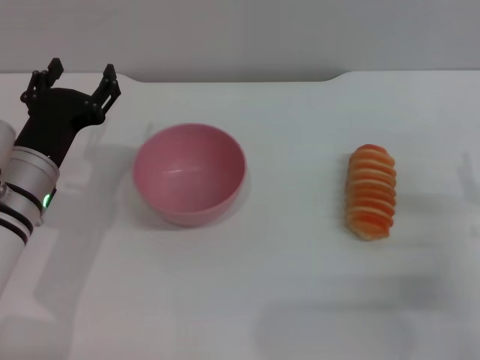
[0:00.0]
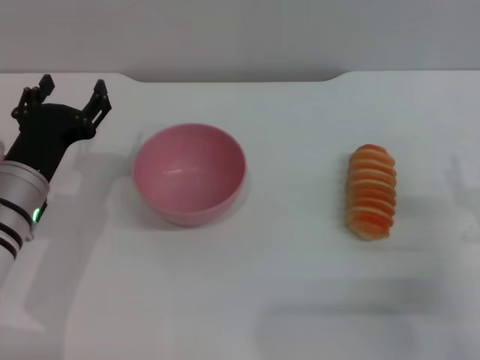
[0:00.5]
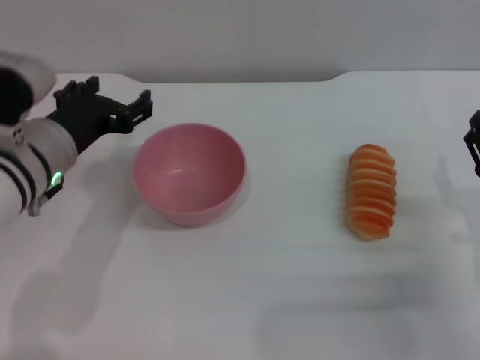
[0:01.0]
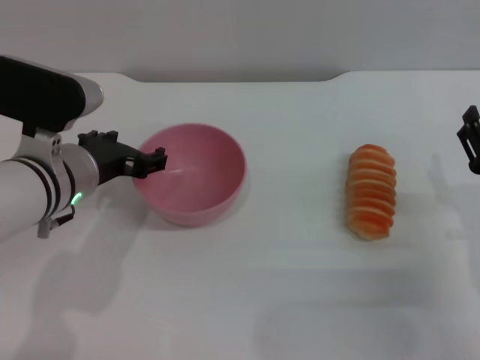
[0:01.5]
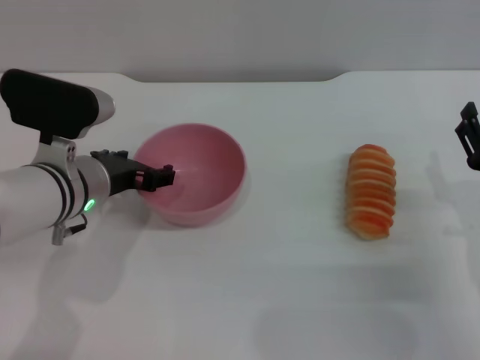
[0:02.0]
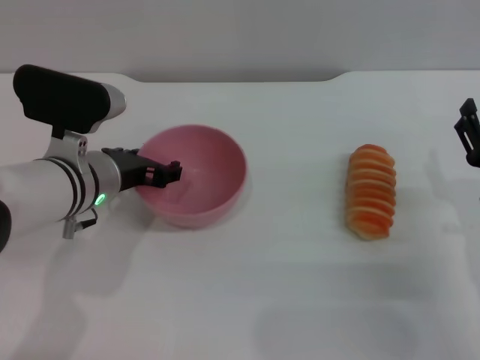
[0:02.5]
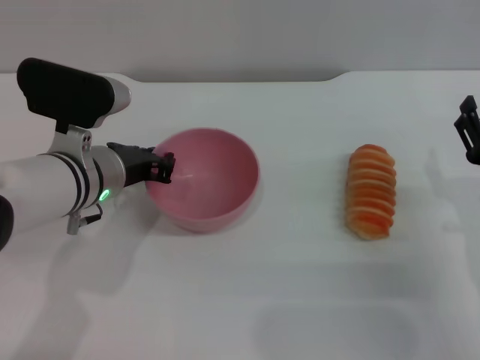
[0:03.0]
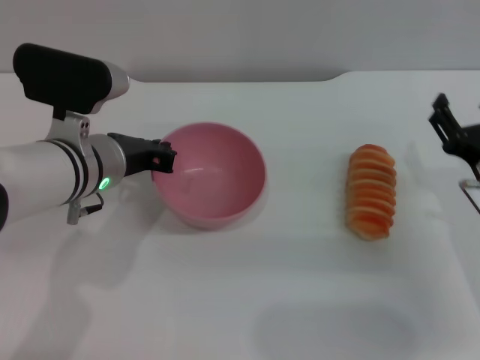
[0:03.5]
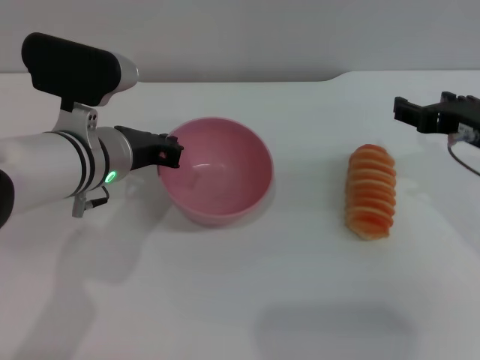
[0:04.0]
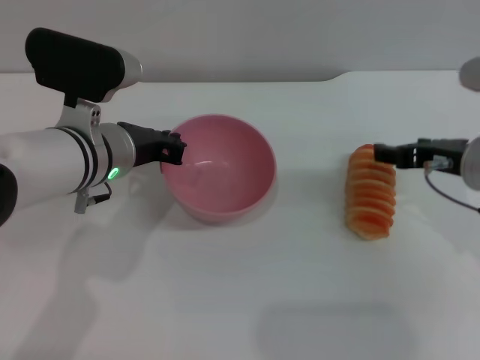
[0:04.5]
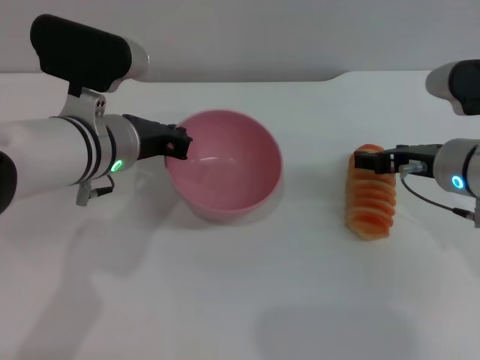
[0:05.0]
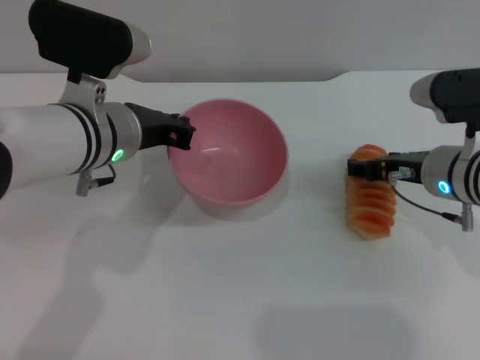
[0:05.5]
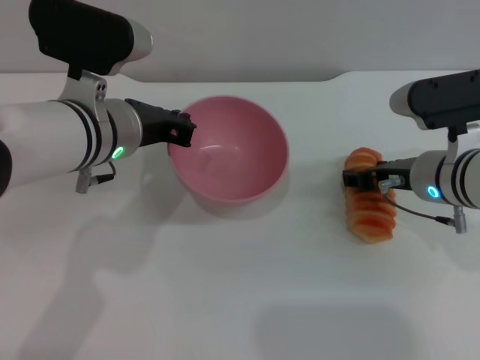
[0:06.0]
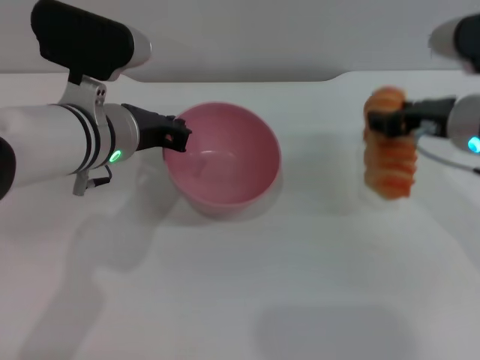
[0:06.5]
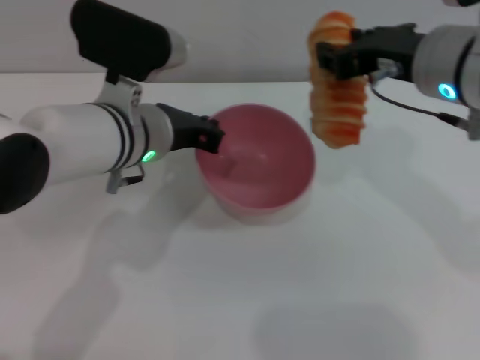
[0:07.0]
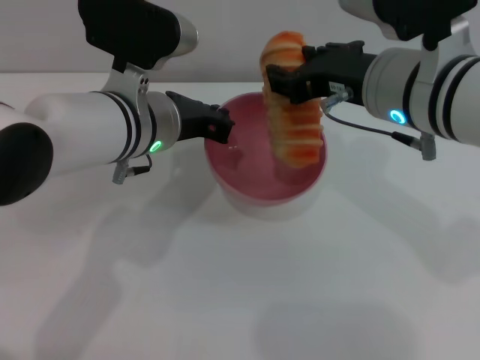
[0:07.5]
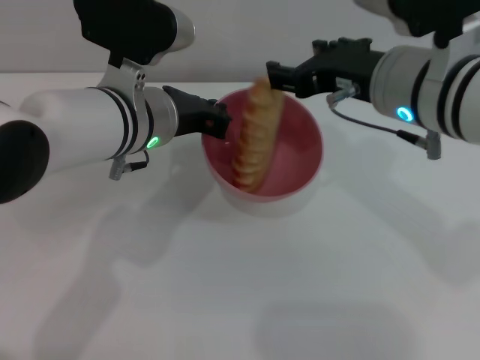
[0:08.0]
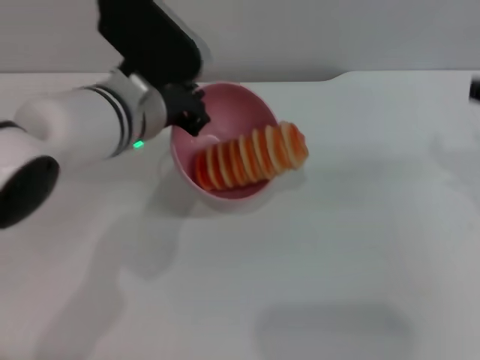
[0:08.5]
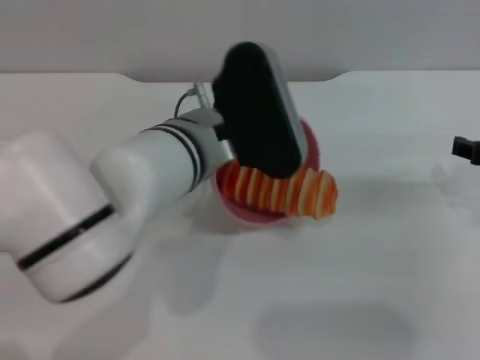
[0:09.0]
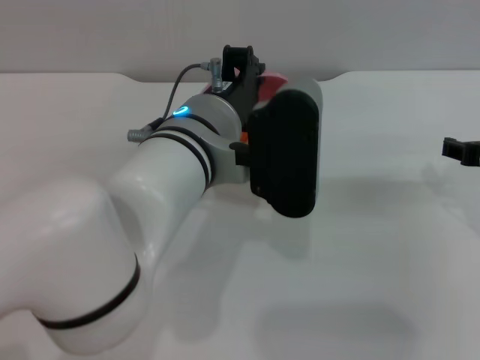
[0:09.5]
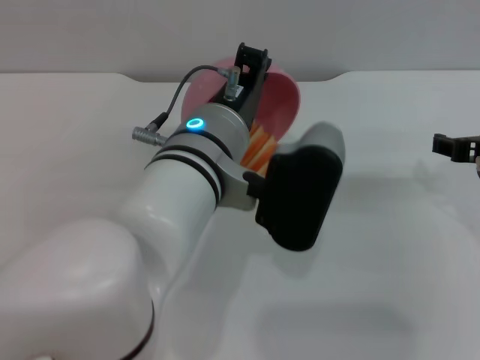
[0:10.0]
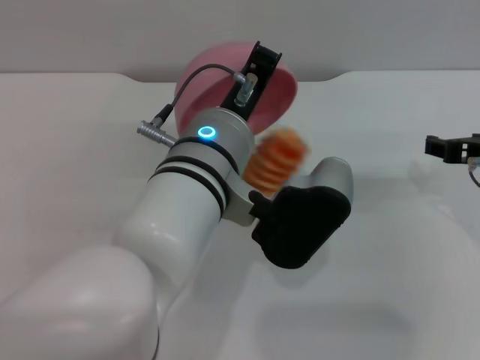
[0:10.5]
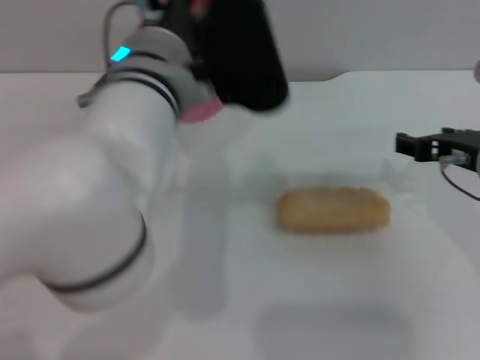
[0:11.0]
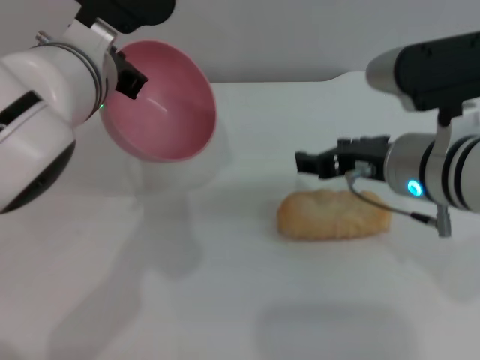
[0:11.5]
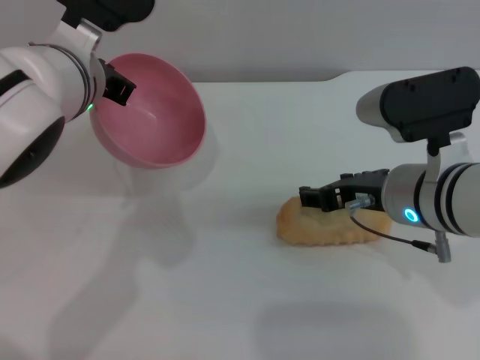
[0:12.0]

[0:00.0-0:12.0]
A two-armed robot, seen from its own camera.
Task of the whole recording: put the bread into the pink bowl and pour it out repeatedly.
Step, 0.0 to 5.5 s: Pick up the bowl with the left gripper.
Step, 7.0 to 8.0 s: Place the bread into the bowl.
Step, 8.5 to 10.5 s: Pour the bread out of the bowl.
0.0 to 2.0 s: The left gripper ends up roughly 5 cm from where it was.
2.0 to 4.0 s: The left gripper closes. Meanwhile the right gripper shifts roughly 15 cm upward and forward.
4.0 to 6.0 s: The right gripper heads downward, covering about 5 cm.
6.0 to 8.0 s: The right gripper heads upward and to the left, covering roughly 15 cm, and closes, then opens again.
8.0 to 10.0 s: The left gripper heads to the right and backward, covering about 10 cm. Meanwhile the right gripper moves to the right and downward, approximately 15 cm.
10.0 to 12.0 s: The left gripper moves to the left and forward, some 10 cm; the right gripper heads to the left, covering about 10 cm.

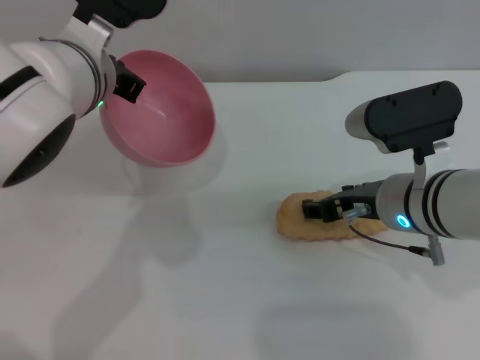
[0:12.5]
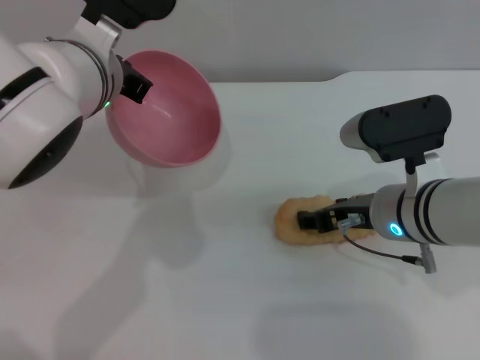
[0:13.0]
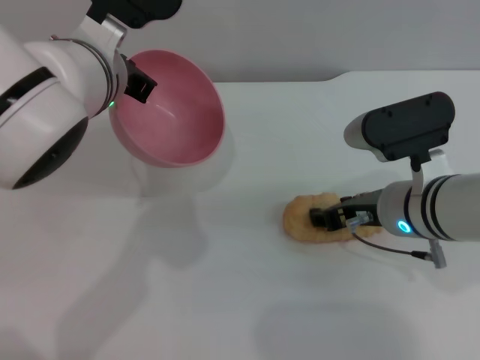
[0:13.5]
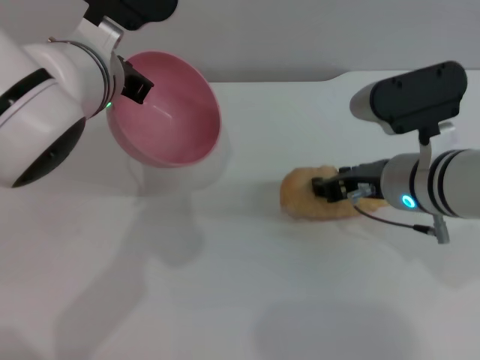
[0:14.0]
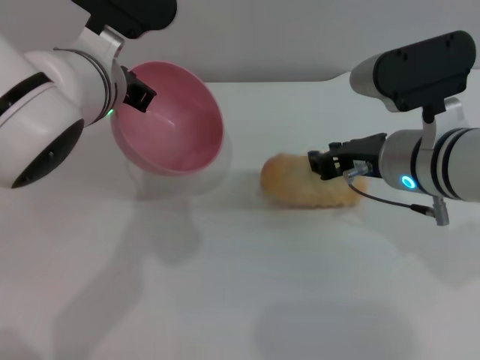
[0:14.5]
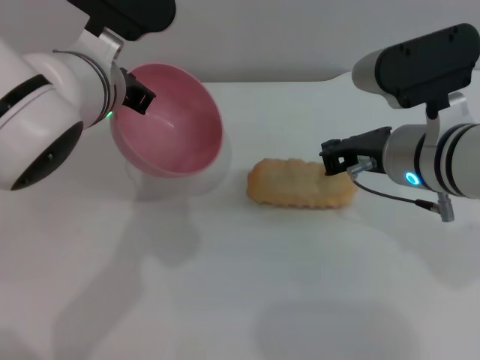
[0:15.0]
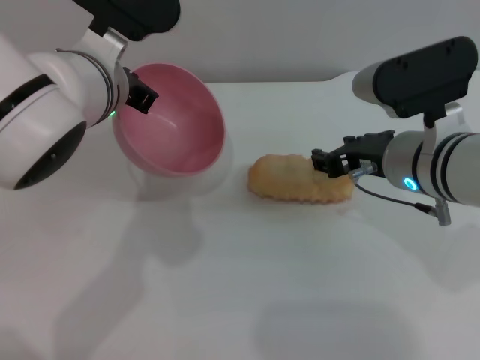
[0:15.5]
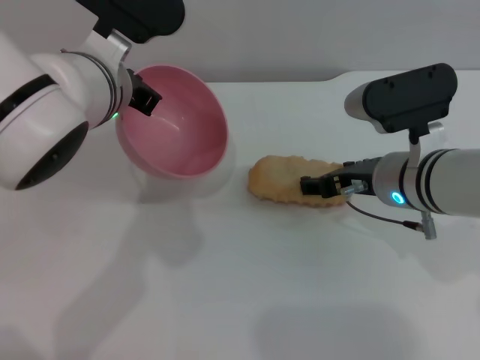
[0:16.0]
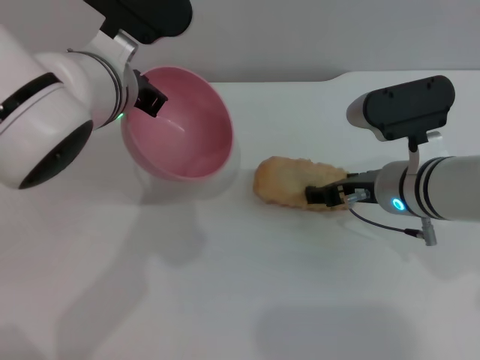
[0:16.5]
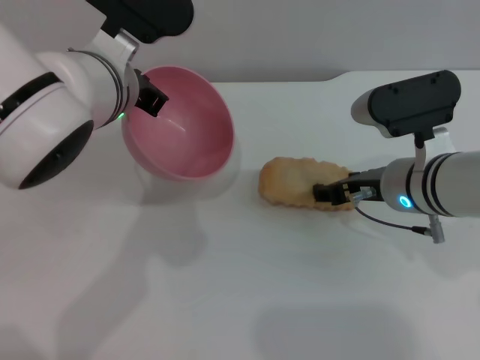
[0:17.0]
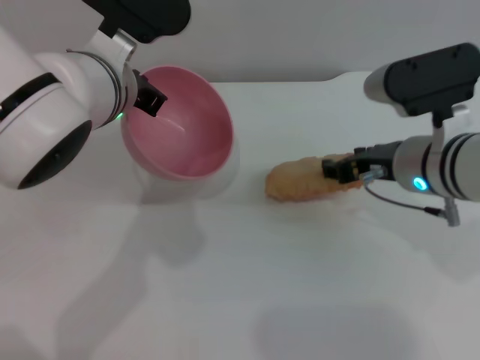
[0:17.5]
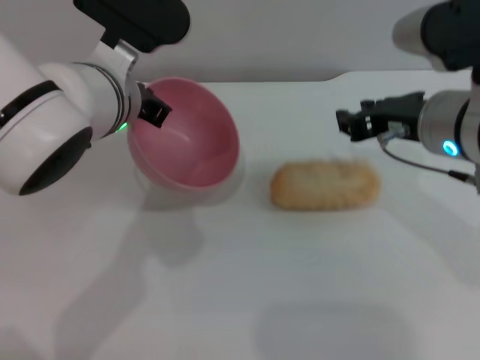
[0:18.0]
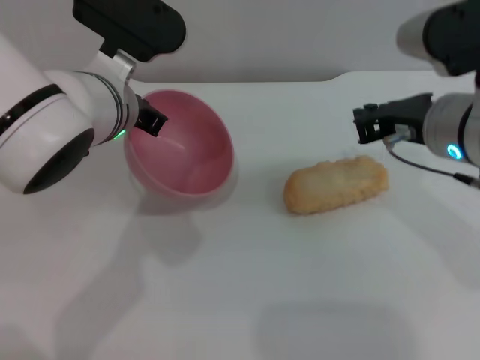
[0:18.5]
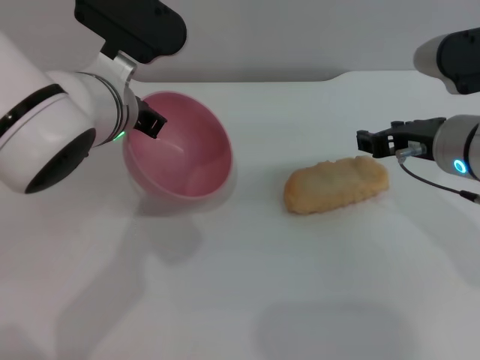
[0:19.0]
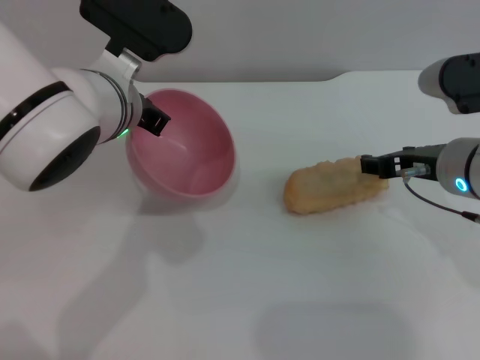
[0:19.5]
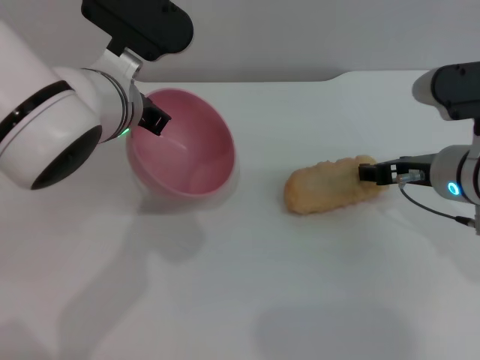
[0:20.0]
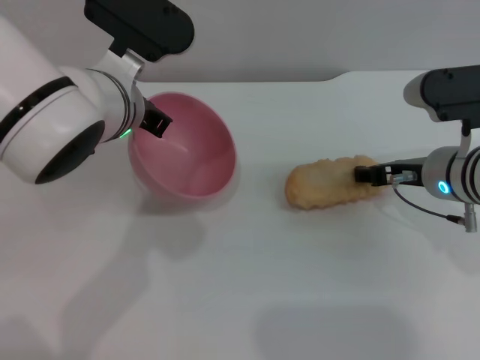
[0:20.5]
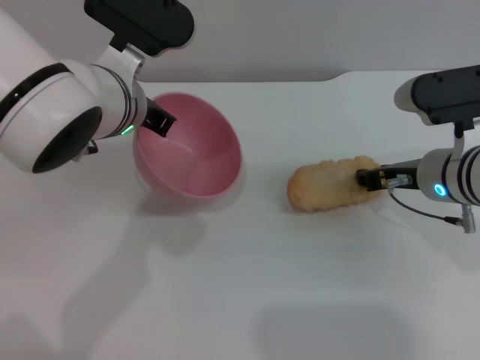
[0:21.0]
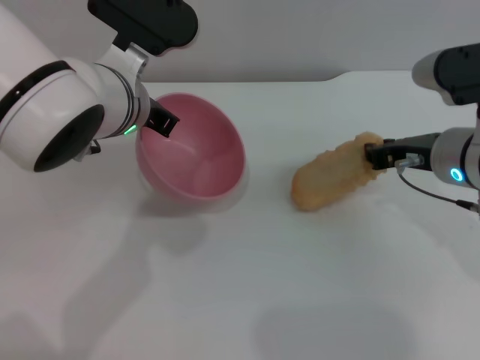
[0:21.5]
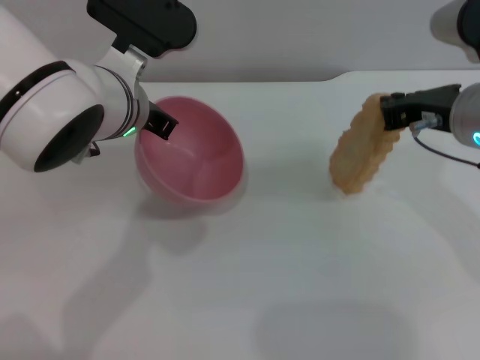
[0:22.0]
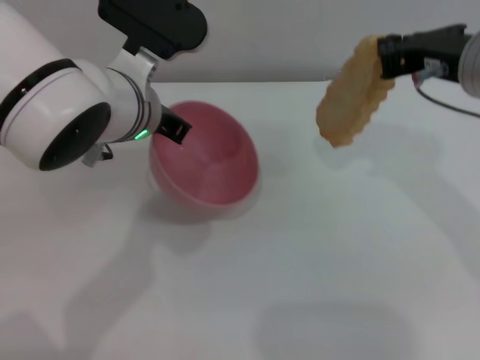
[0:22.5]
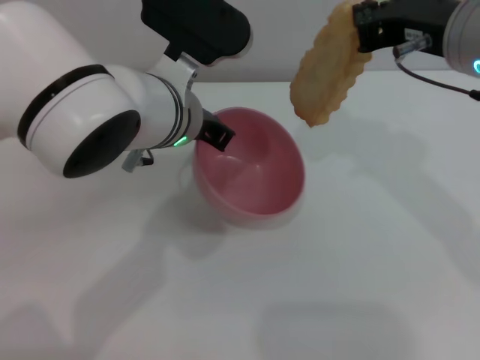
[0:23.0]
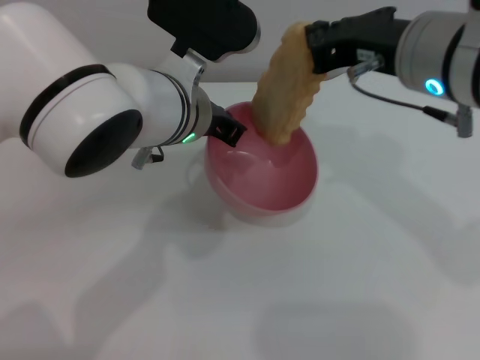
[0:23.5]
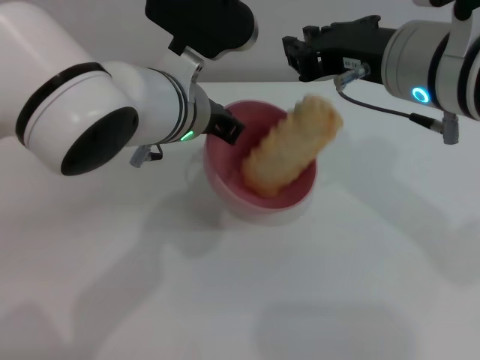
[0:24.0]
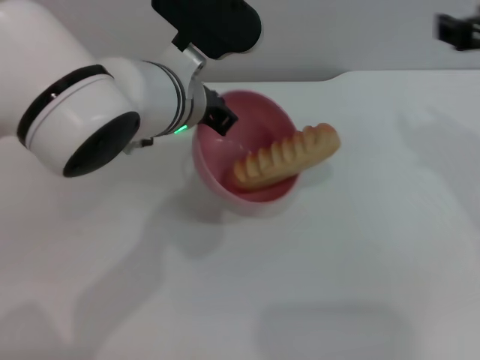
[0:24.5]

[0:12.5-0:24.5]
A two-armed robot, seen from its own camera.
Task of the whole recording: put the bread into the pink bowl and pour it out repeatedly.
Step, 12.5 to 22.0 s: Pick up the bread with the right gripper.
Step, 22.5 to 24.0 s: Place the bread into the bowl.
12.5 to 14.5 s: The right gripper closes its fingers.
14.5 to 16.5 s: The right gripper is displaced downward by approximately 5 cm, and opens up.
16.5 to 18.5 s: The right gripper is displaced upward by roughly 10 cm, and closes its fingers.
18.5 to 20.5 s: The right gripper is displaced downward by some 10 cm, and opens up.
20.5 to 22.5 s: The right gripper goes about 15 cm upward, and closes up.
22.5 to 24.5 s: The right gripper opens up.

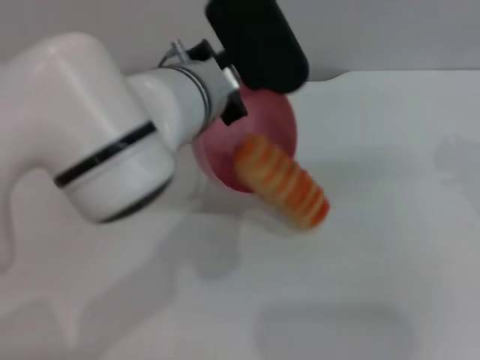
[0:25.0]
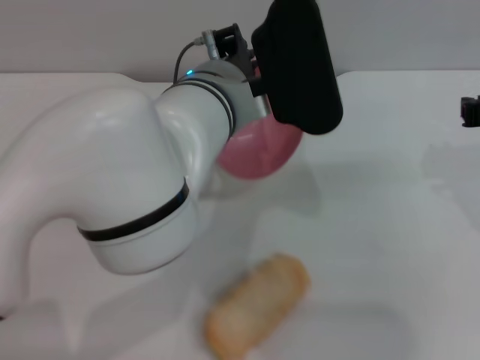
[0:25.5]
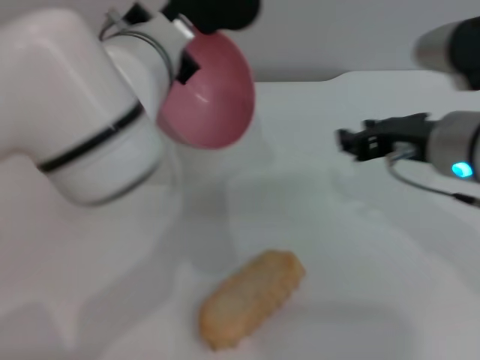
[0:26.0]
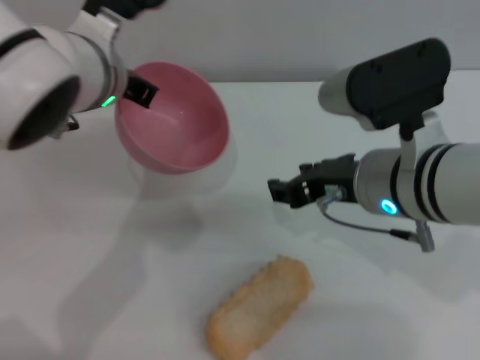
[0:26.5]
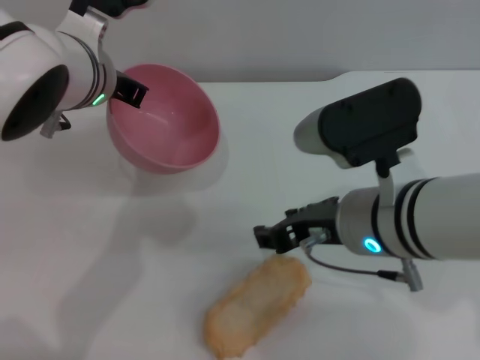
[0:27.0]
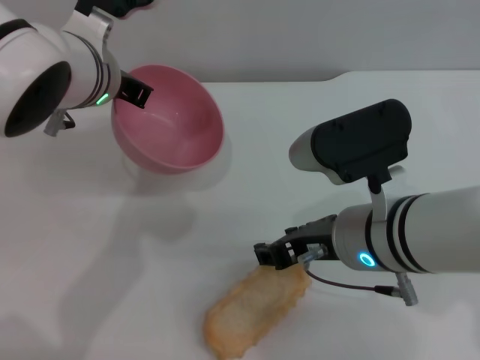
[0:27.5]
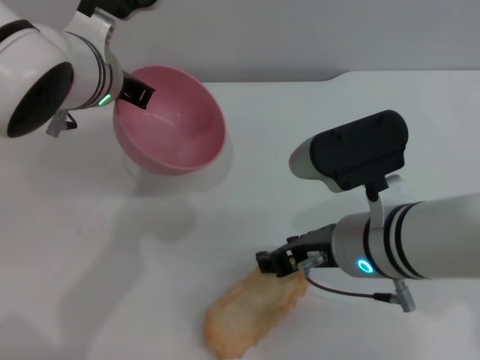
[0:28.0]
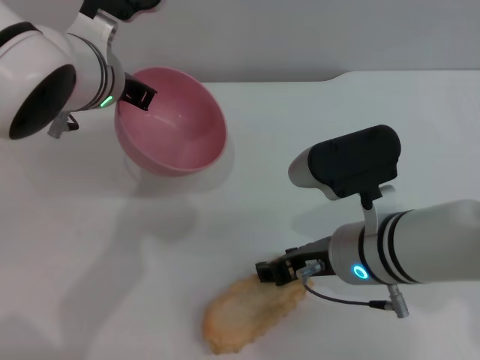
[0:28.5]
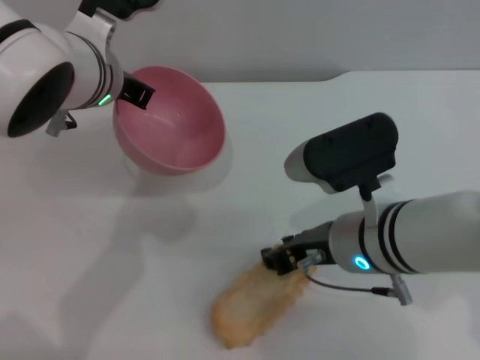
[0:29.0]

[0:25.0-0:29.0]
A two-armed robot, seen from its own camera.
Task of the whole recording: put the bread into the pink bowl and pour it out repeatedly.
25.0 to 27.0 s: The left gripper shifts roughly 10 cm to the left. The right gripper is displaced to the left by about 15 cm, and opens.
27.0 to 29.0 s: The grippers make only small movements.
